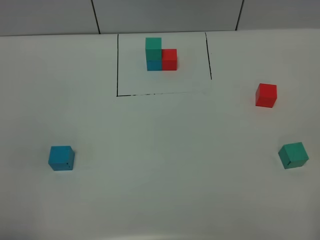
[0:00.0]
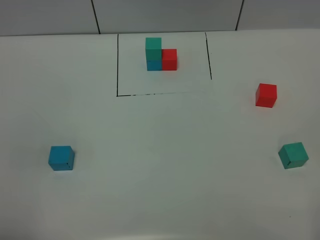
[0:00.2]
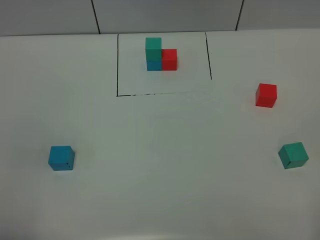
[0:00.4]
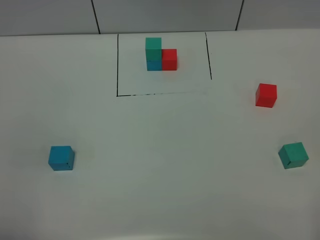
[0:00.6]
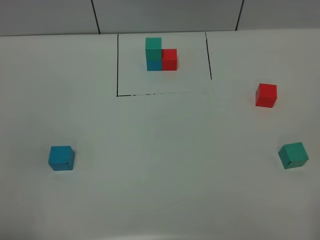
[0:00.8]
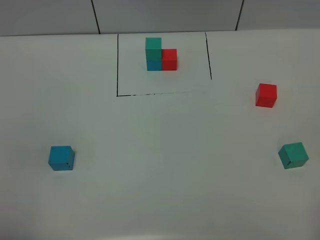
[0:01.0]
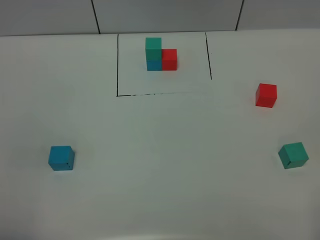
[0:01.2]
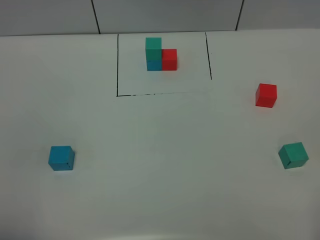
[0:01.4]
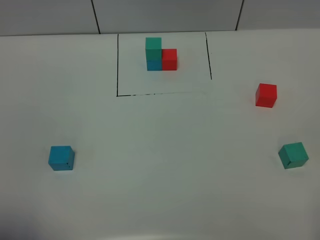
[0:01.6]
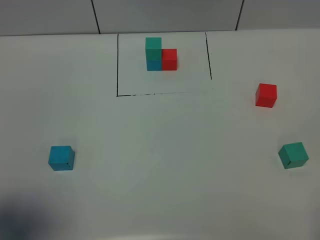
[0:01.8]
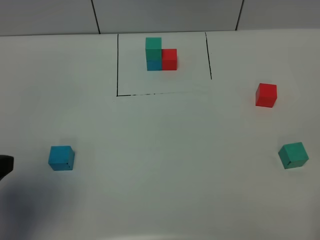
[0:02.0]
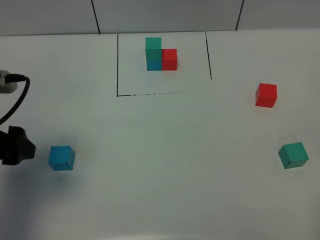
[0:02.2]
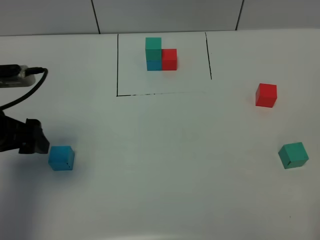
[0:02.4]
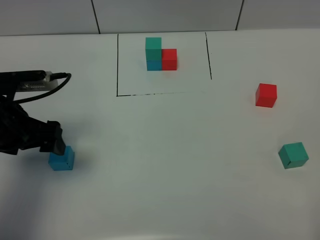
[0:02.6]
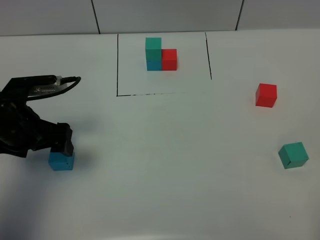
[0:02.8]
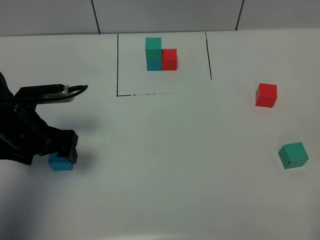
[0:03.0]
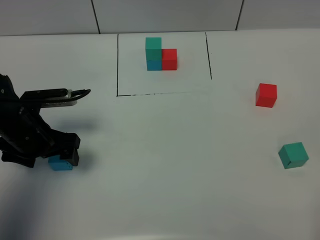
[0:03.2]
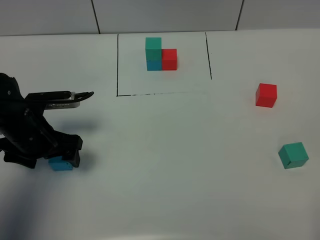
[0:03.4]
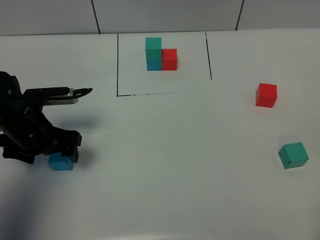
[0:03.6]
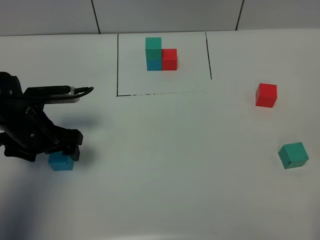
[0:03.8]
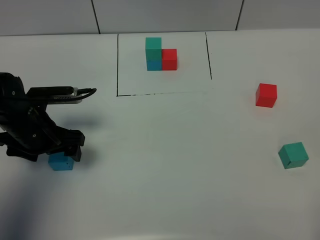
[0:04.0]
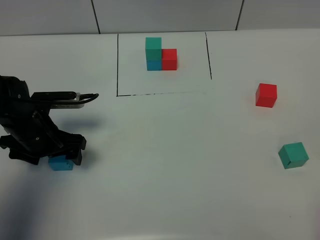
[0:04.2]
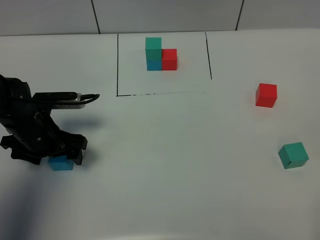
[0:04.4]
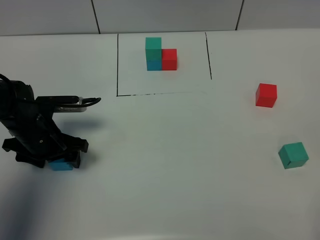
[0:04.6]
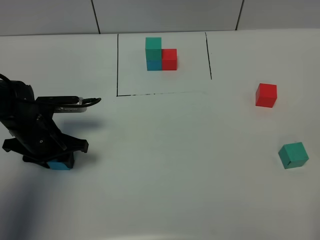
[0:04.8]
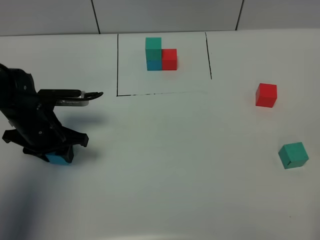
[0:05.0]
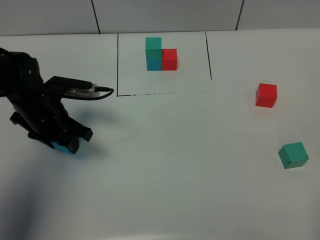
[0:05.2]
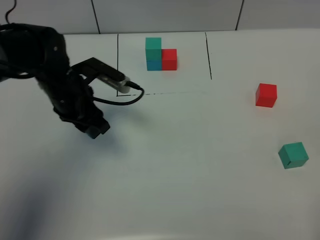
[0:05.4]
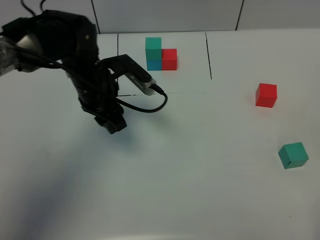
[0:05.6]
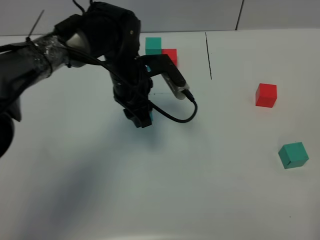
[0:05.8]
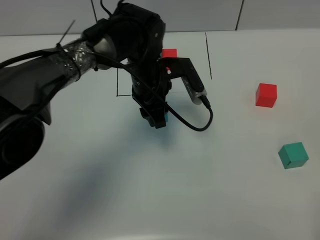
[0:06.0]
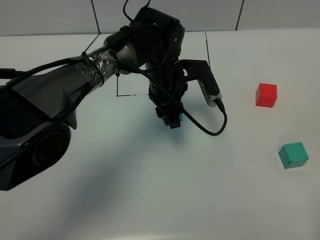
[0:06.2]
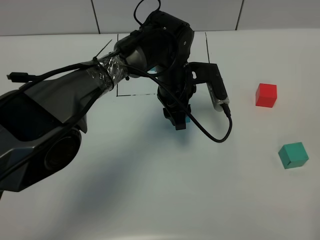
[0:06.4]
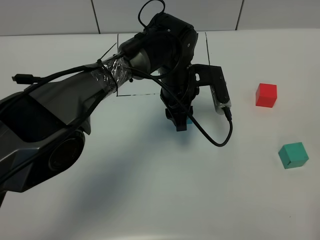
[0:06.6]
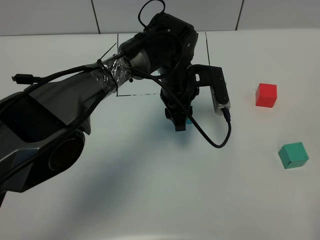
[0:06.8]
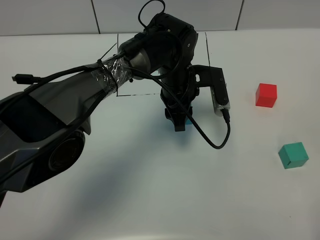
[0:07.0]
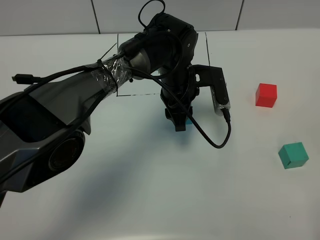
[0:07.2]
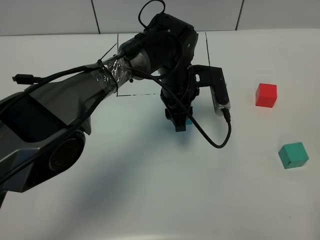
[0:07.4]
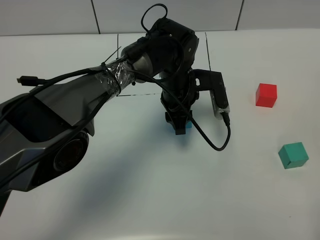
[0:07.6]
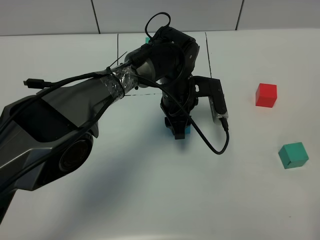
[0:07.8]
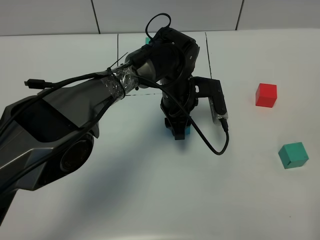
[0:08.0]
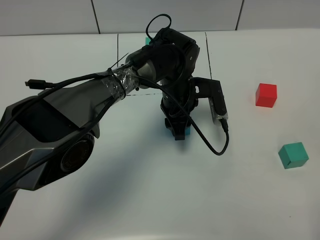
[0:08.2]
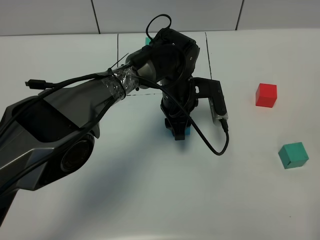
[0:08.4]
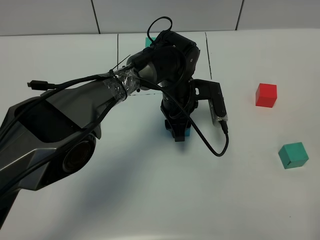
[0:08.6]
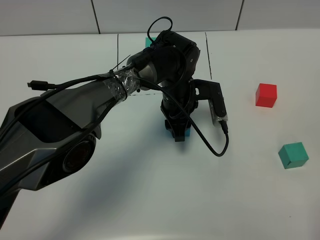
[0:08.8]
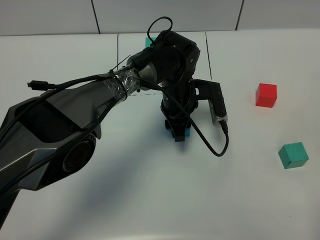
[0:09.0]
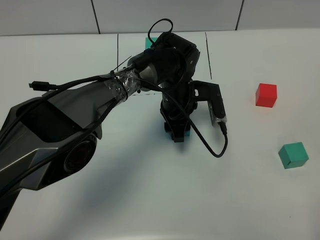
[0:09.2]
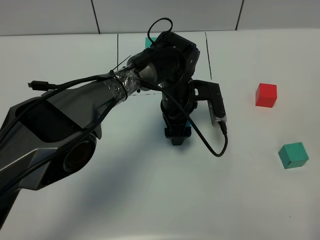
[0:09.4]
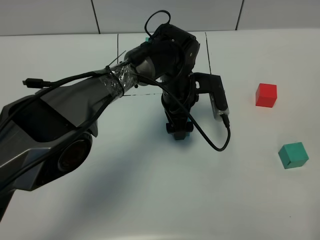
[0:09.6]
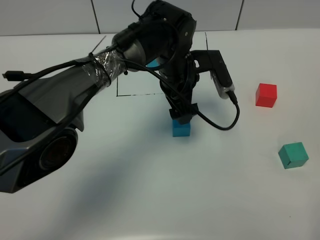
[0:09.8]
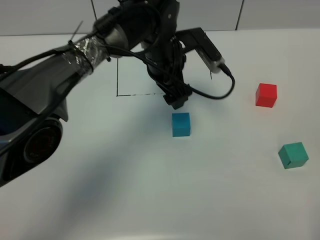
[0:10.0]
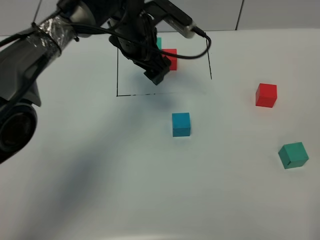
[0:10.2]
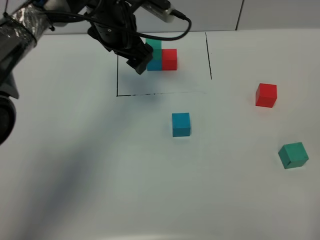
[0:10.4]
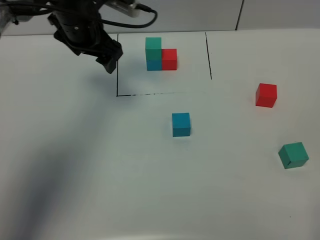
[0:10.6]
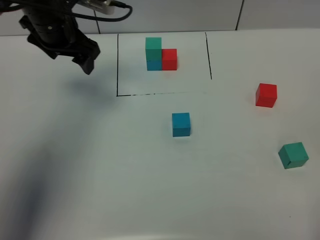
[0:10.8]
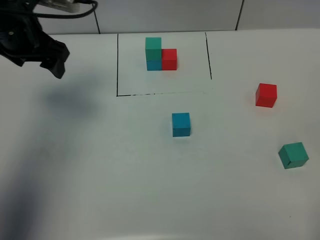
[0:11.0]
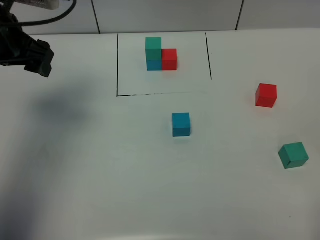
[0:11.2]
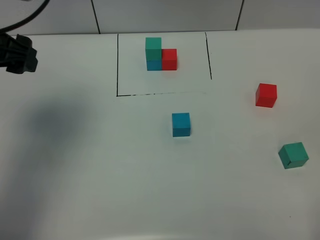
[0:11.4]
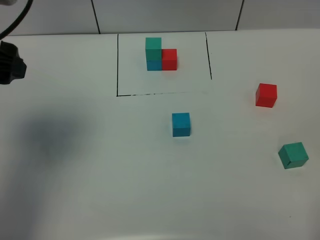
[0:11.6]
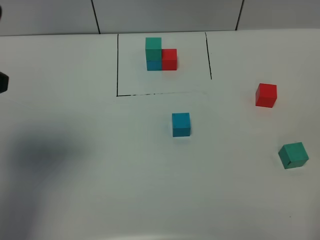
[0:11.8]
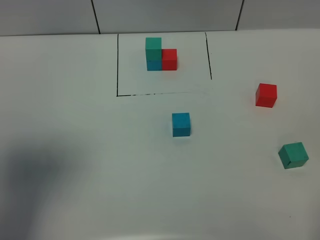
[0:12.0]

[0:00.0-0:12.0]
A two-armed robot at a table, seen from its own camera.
Task of the whole recording: According to the building block template in front, assemble the scattered blocks together.
Step, 0:00.0 to 0:09.2: Put the blue build block in the center of the table.
0:01.6 to 0:03.0: The left gripper moves forward and downward, some 30 cm.
0:03.0 to 0:04.4: The grippers move only a little.
0:04.4 to 0:06.0: The left gripper moves to the right and forward, approximately 25 cm, and closes.
0:06.0 to 0:07.6: The left gripper shifts by approximately 5 cm.
0:07.6 to 0:09.0: The grippers move only a little.
0:09.0 to 0:10.4: The left gripper heads upward and to the left, covering approximately 20 cm, and opens its fingers.
0:10.4 to 0:12.0: The left gripper is displaced backward, to the left and upward by about 35 cm.

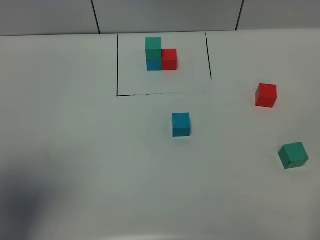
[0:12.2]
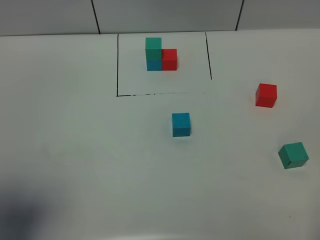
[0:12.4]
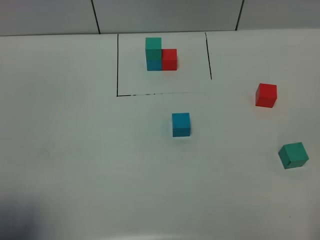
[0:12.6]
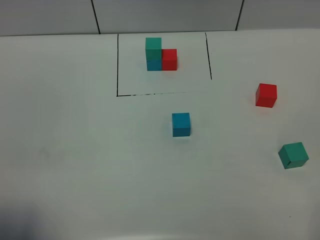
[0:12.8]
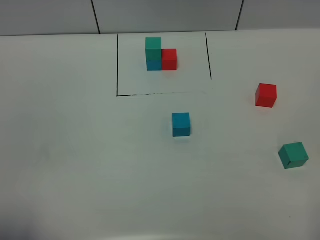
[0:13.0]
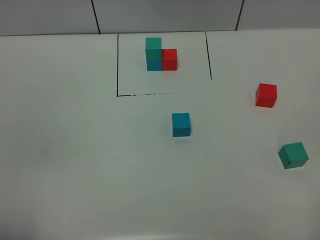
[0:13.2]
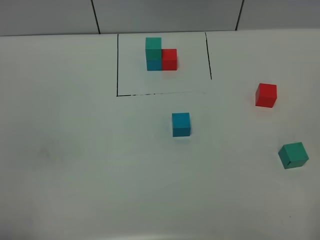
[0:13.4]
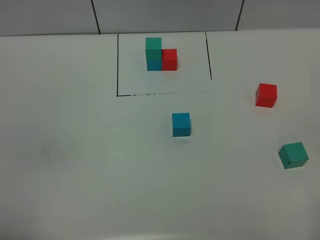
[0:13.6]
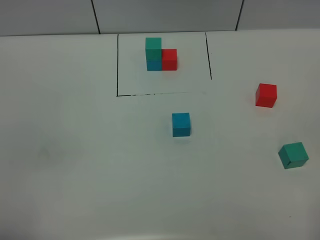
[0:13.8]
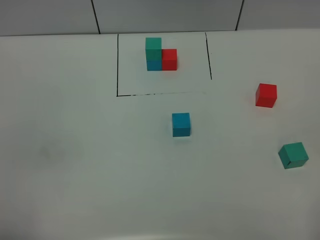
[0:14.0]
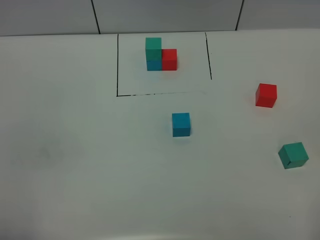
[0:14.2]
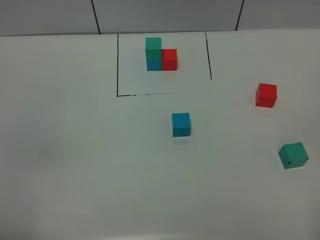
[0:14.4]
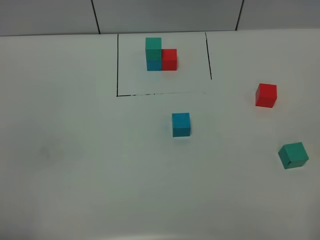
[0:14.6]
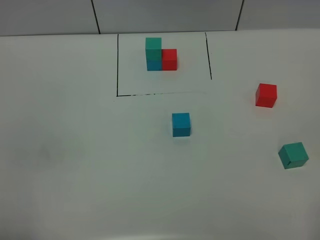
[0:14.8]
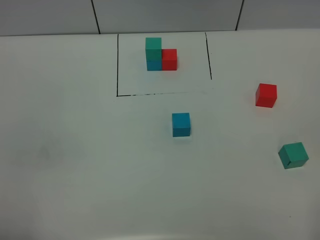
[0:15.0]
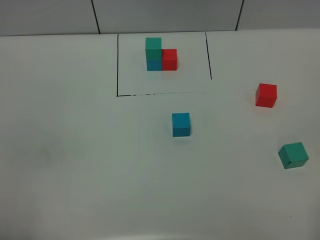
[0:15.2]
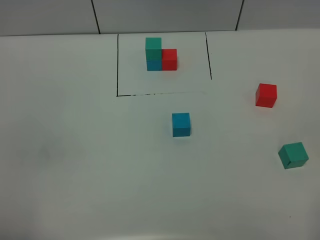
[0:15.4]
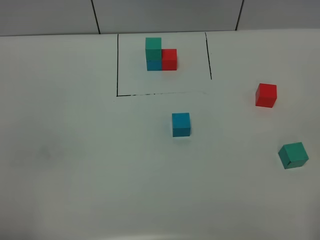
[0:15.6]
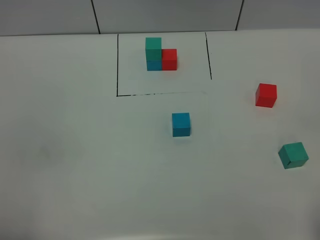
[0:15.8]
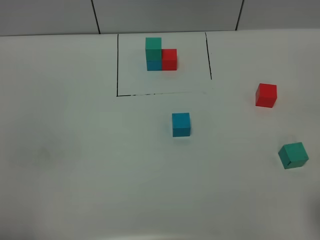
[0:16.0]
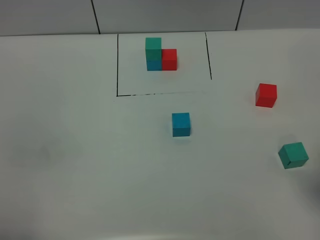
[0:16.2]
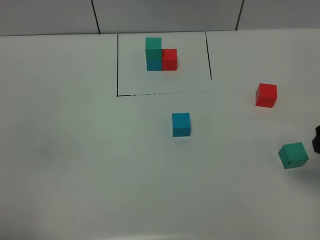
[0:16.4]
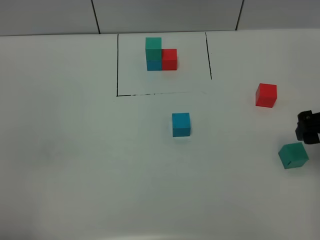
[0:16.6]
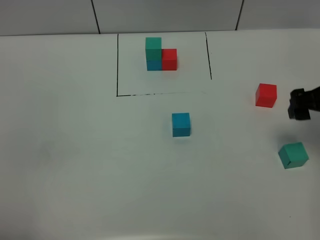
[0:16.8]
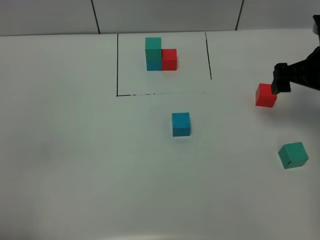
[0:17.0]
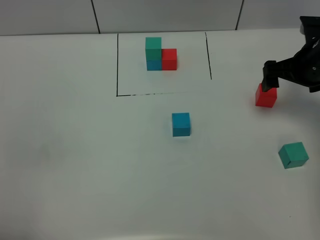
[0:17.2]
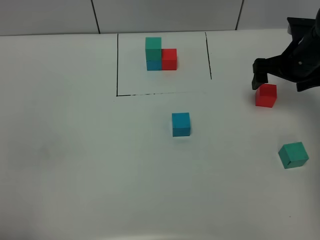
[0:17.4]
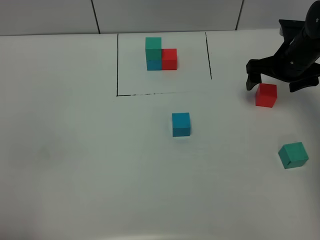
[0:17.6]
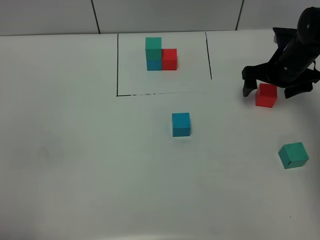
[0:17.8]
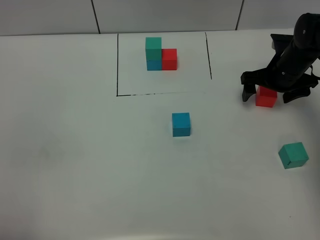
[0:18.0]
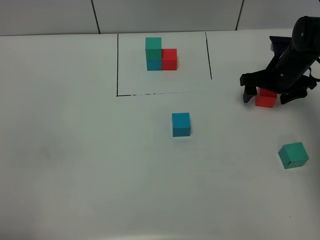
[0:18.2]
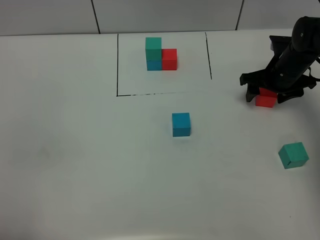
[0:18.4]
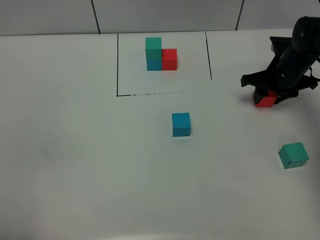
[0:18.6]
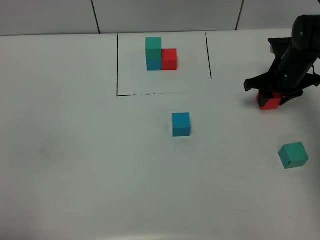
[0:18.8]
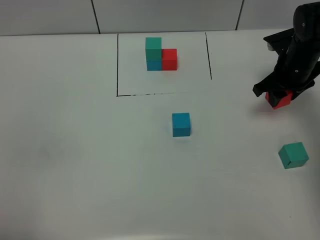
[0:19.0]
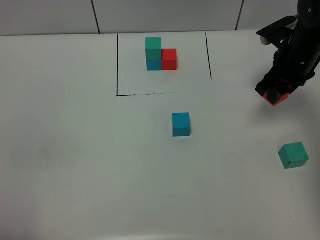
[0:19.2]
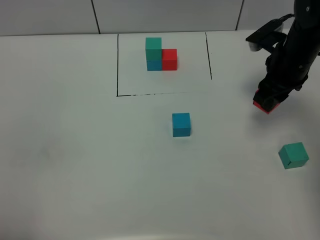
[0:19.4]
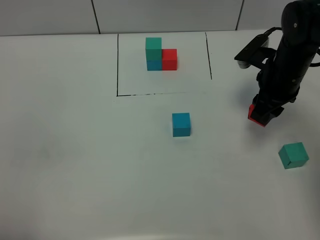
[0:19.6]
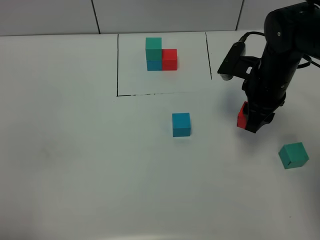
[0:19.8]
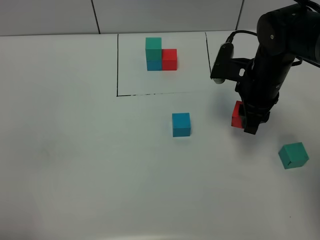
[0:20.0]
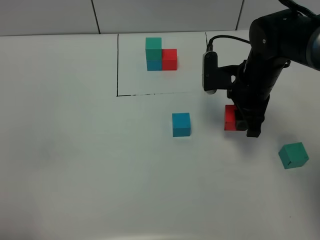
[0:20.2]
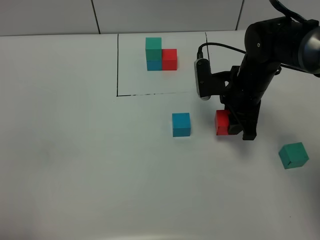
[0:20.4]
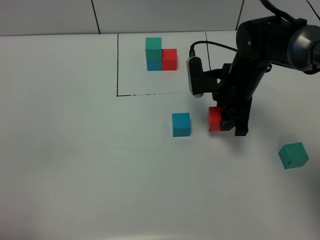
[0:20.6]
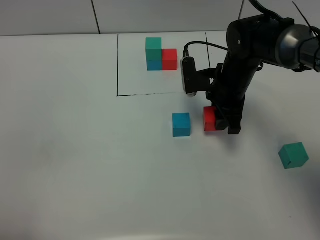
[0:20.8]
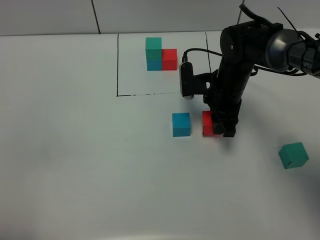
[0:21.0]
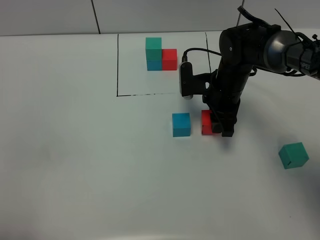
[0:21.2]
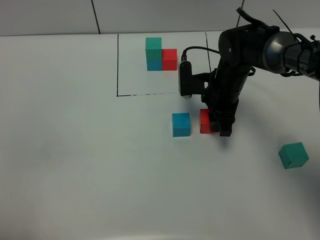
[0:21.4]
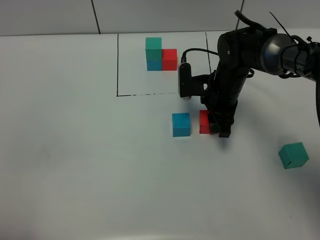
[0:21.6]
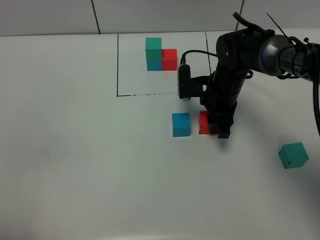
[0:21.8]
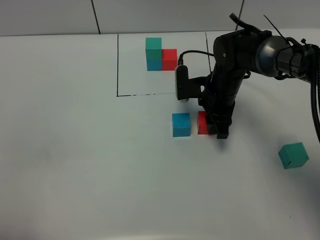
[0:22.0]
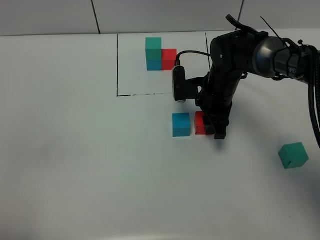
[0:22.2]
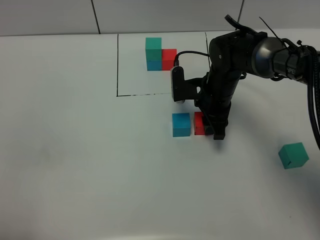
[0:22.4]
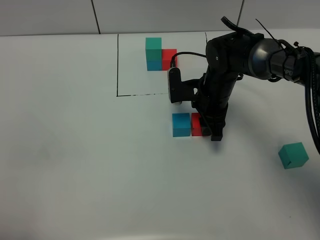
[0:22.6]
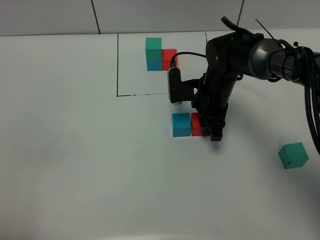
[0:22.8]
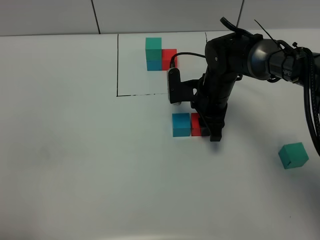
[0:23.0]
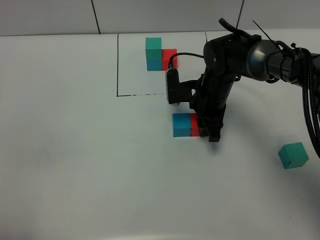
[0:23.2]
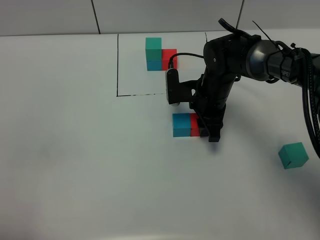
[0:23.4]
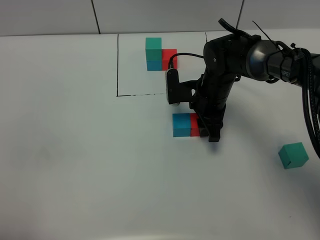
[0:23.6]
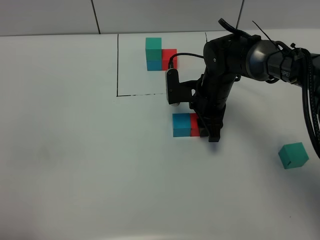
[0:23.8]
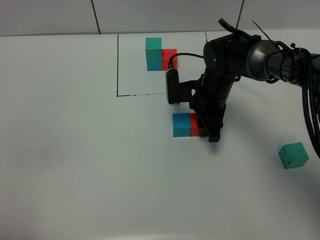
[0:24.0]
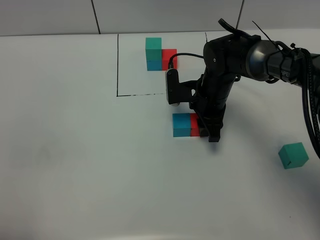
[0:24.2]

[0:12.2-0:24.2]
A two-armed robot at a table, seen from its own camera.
Task of the whole recording: According to the building block template in front, assemble the scattered blocks together.
0:12.2 to 0:13.8: The left gripper moves backward and downward, approximately 15 cm.
0:15.2 to 0:16.6: The right gripper travels forward by roughly 25 cm.
0:16.6 to 0:18.2: The right gripper travels forward and downward by about 20 cm.
0:18.2 to 0:19.8: The right gripper shifts about 15 cm backward, to the left and upward, and closes its fingers.
0:19.8 to 0:21.2: The right gripper shifts roughly 10 cm downward and to the left.
0:21.2 to 0:22.6: The grippers move only a little.
0:22.6 to 0:24.2: Both grippers stay put.
